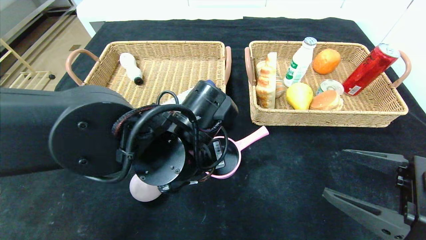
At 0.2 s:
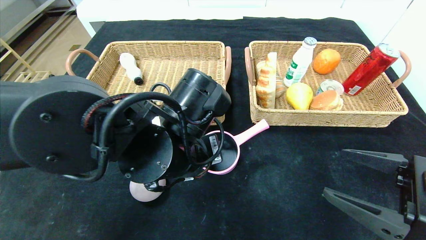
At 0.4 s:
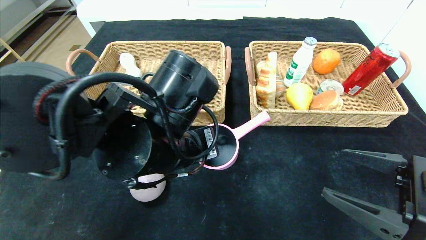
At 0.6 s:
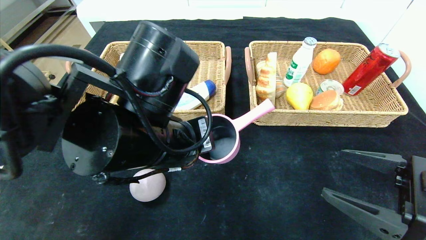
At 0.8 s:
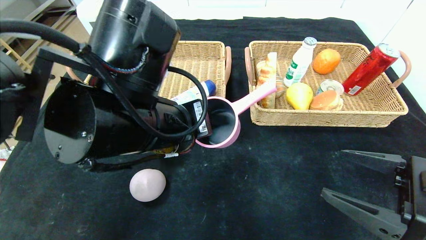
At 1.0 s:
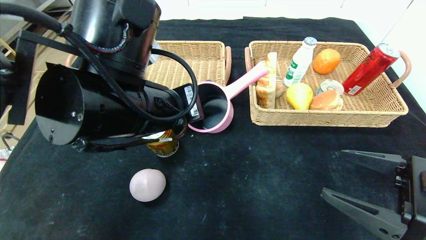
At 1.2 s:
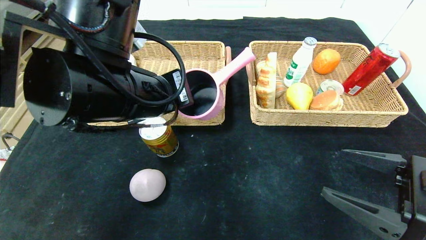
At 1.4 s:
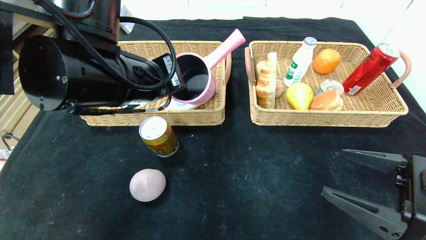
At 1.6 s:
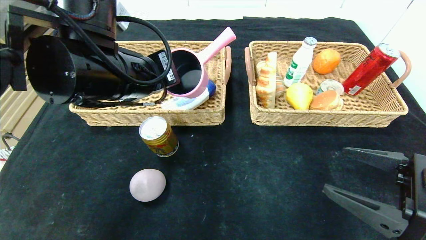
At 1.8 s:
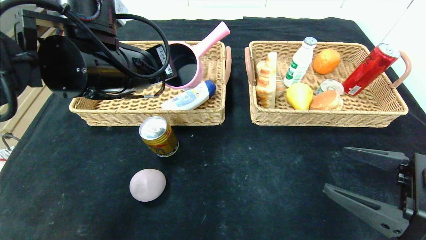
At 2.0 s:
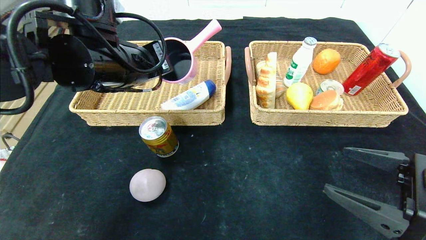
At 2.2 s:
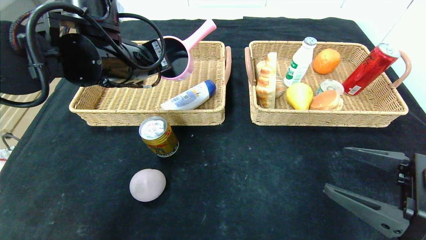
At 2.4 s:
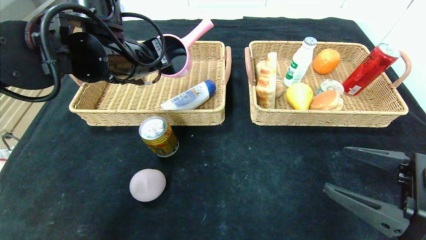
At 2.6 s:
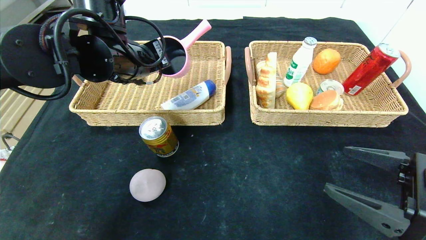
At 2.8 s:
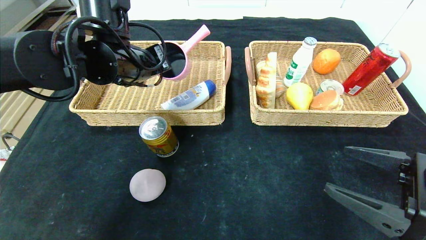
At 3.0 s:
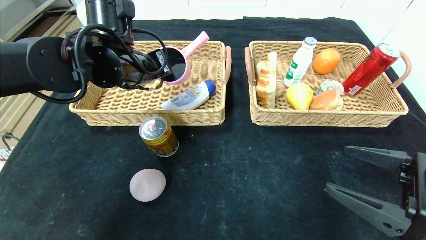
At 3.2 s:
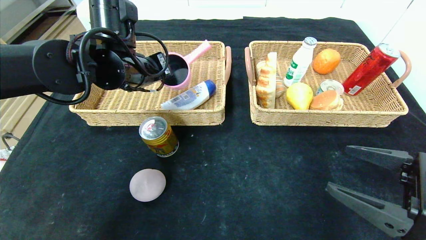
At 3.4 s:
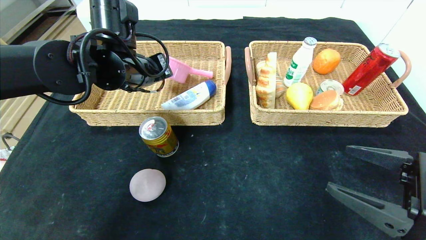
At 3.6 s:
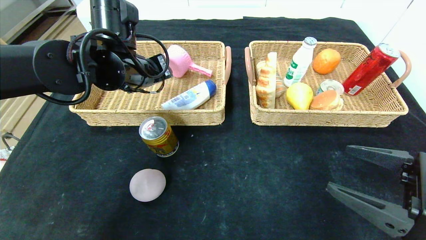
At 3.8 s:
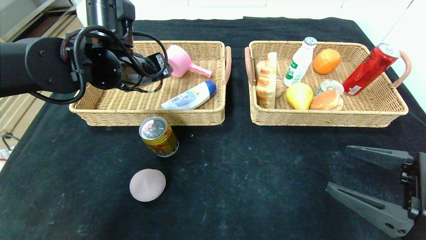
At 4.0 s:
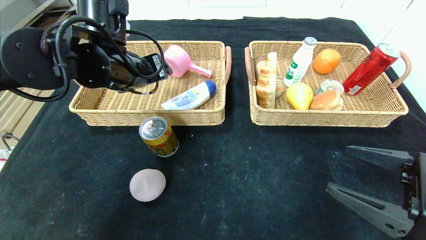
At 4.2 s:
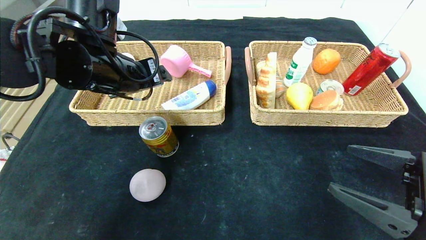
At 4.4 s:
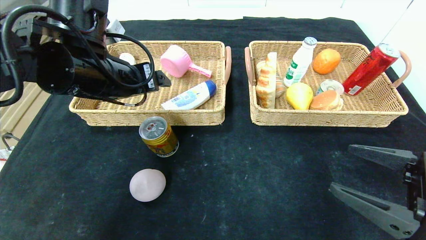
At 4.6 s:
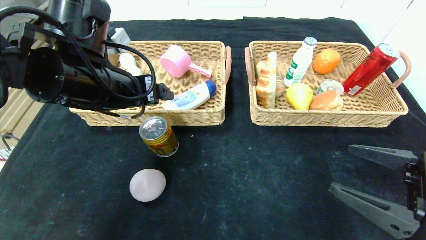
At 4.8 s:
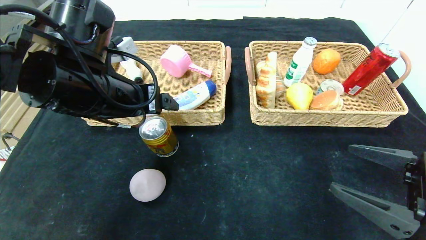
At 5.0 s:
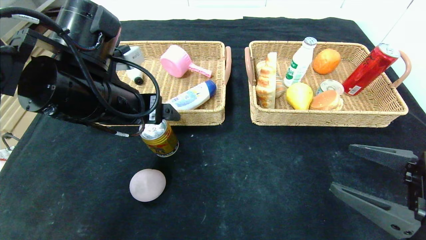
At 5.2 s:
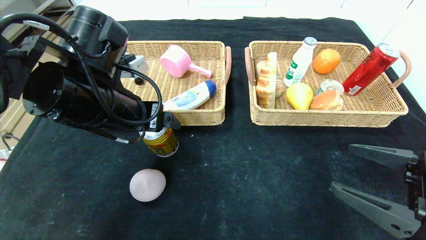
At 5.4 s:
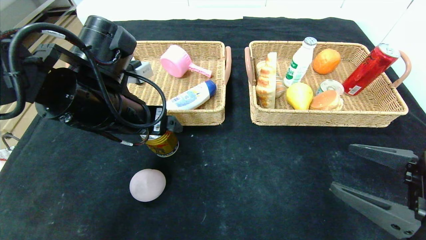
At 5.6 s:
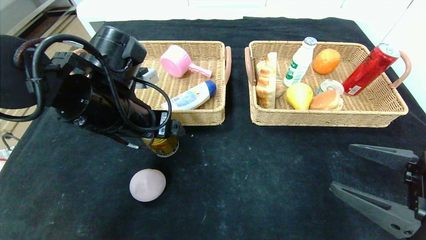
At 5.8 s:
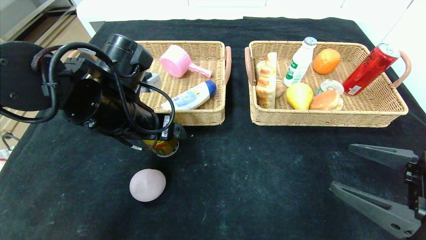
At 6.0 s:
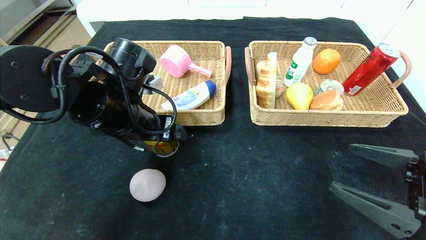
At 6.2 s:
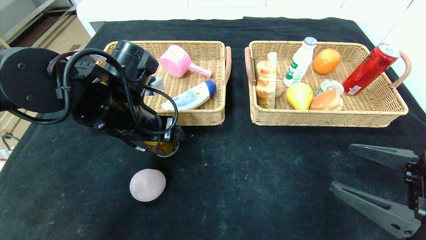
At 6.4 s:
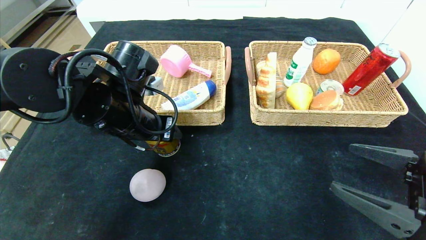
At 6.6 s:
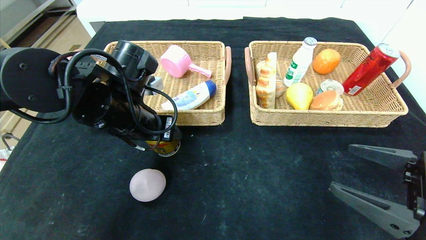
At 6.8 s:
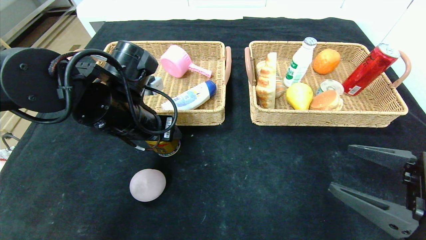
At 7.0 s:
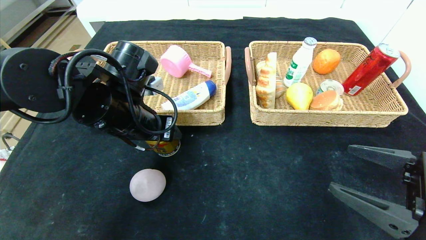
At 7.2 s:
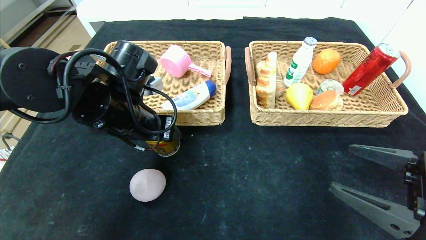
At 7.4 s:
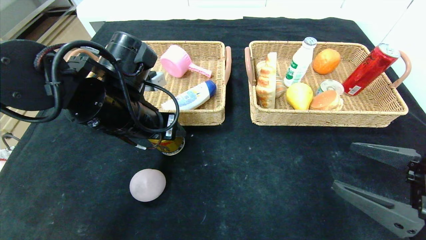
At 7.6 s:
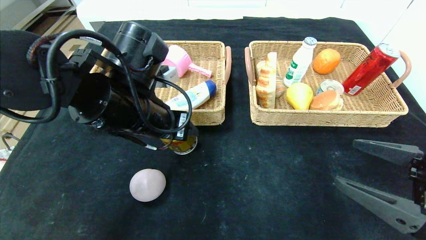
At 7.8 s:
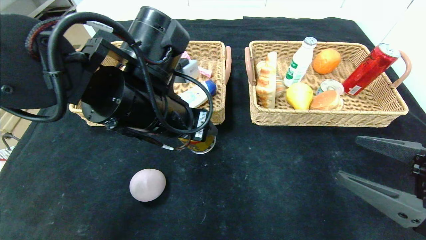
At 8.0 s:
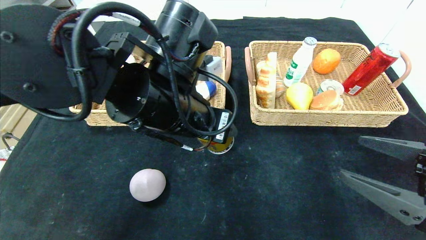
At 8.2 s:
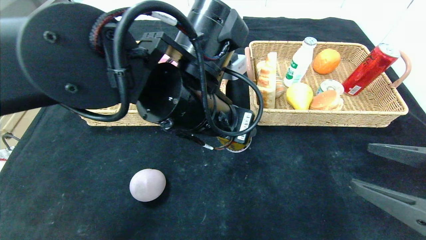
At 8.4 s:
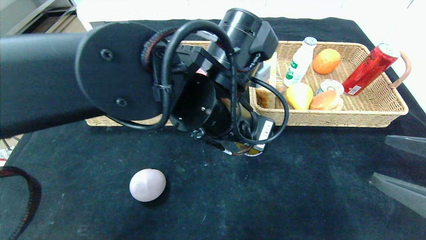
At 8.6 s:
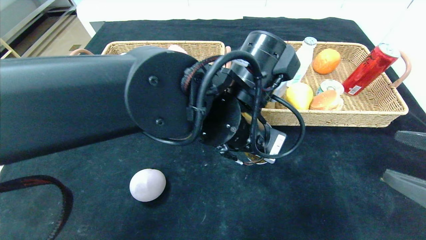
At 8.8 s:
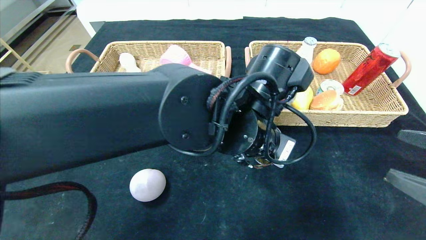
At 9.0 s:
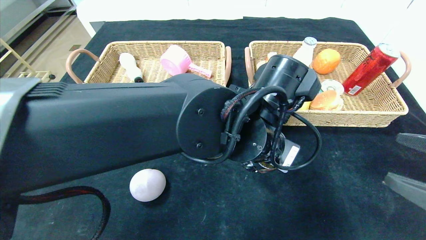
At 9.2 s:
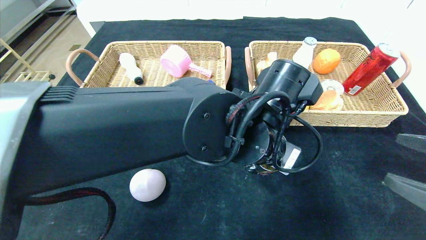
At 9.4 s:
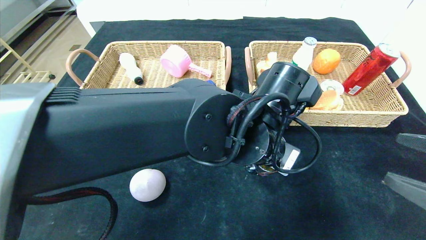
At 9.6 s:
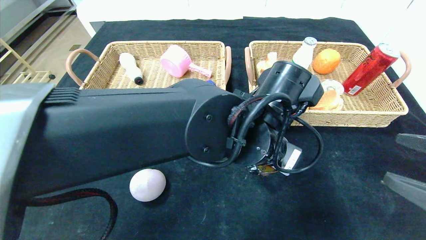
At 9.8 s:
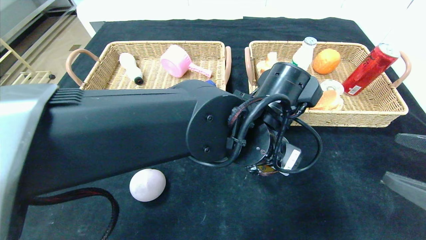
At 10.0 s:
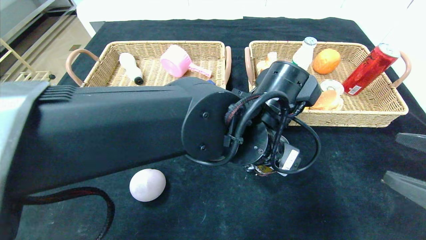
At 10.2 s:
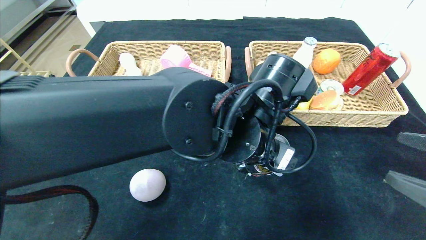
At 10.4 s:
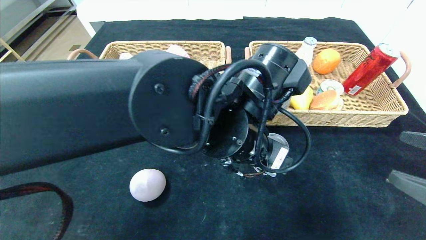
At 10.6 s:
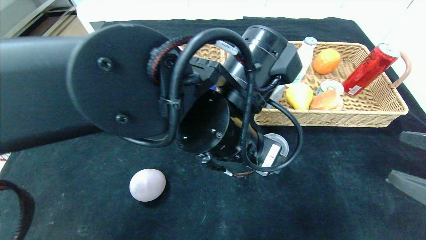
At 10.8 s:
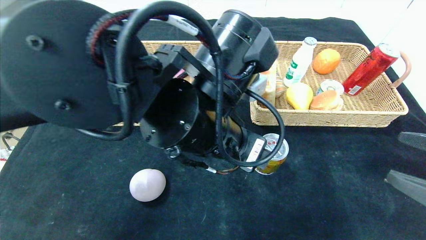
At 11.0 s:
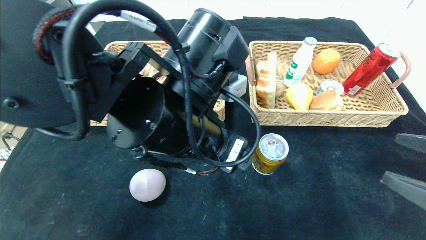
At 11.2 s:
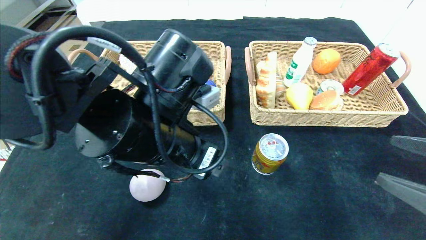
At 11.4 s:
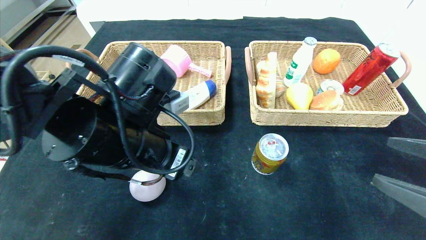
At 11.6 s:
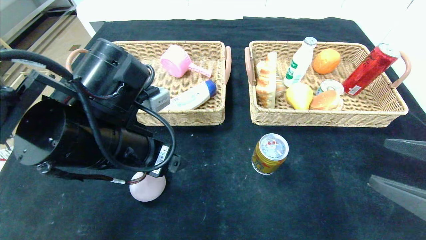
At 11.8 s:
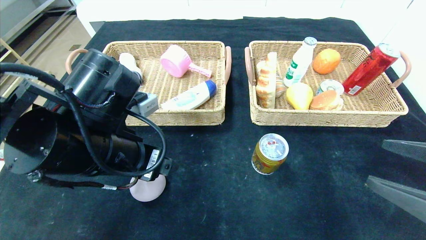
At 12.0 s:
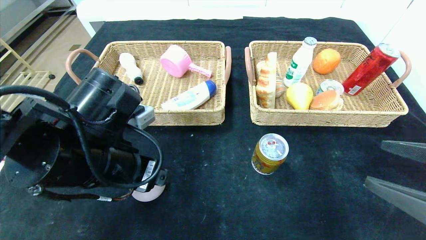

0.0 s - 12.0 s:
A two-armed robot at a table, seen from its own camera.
Step, 0.0 s - 3.6 s: Grasp the pink pot and put it in the left basket.
Step, 3.8 s - 10.2 s: Place the Red Bull in the center of the table.
0.0 s - 1.6 s: The left gripper heads upward and to the left, covering about 15 cm.
1.6 s - 3.0 s: The left gripper travels forward by roughly 10 cm.
3.0 s - 4.4 s: The left gripper is displaced backward by roughly 5 cm, and opens.
4.4 s - 6.0 s: The left gripper moves downward, approximately 5 cm.
6.0 s - 7.6 s: There are only small adjustments of the grippers.
7.6 s - 9.0 s: The left gripper is displaced to the right by approximately 15 cm.
10.4 s - 12.0 s: The left gripper moves to the left, some 20 cm.

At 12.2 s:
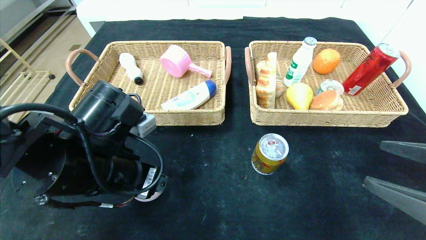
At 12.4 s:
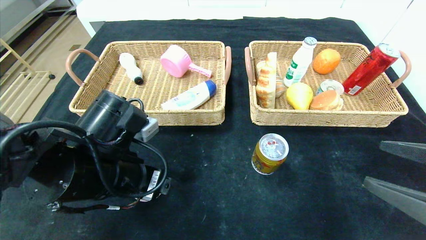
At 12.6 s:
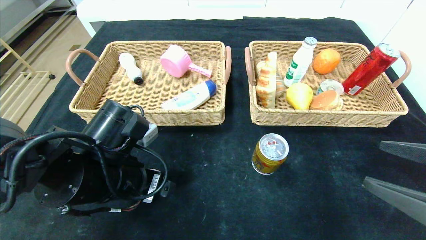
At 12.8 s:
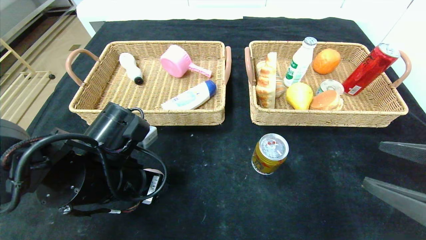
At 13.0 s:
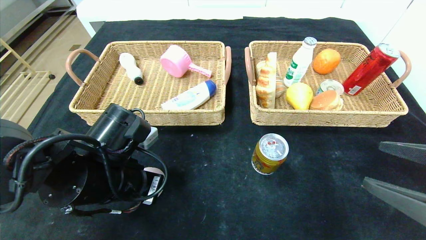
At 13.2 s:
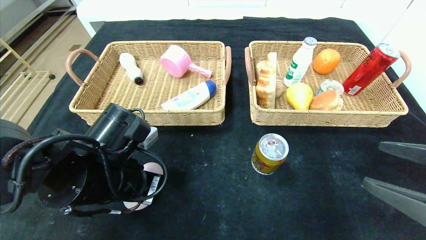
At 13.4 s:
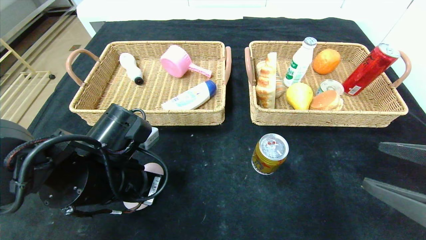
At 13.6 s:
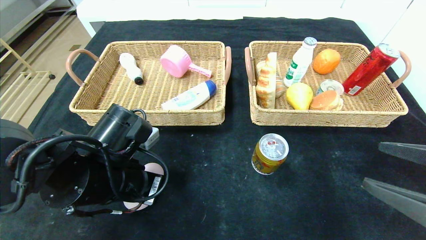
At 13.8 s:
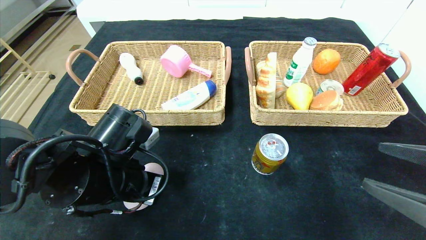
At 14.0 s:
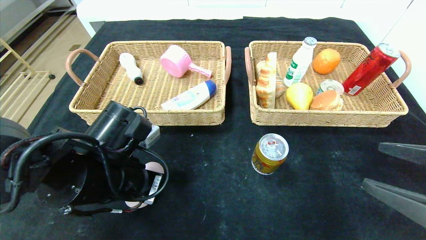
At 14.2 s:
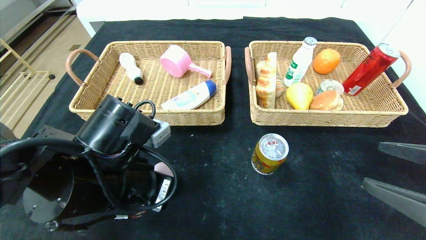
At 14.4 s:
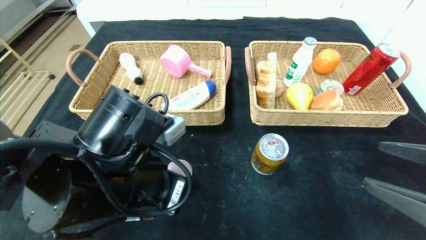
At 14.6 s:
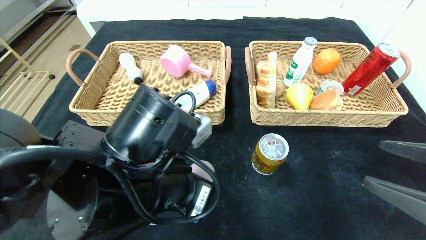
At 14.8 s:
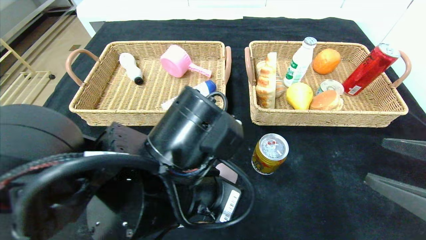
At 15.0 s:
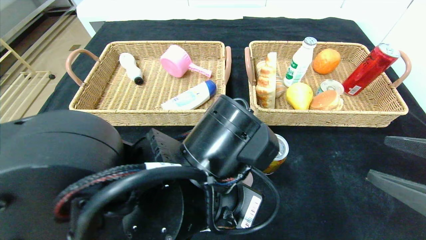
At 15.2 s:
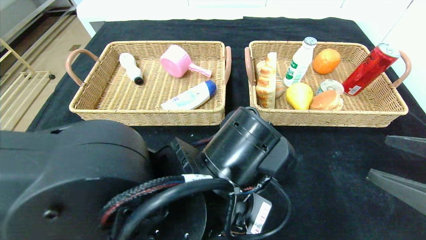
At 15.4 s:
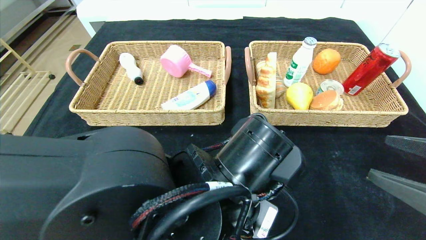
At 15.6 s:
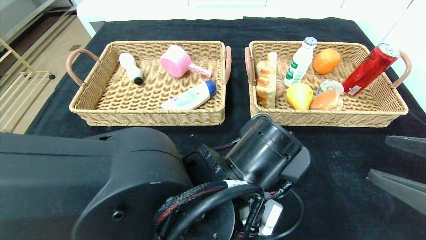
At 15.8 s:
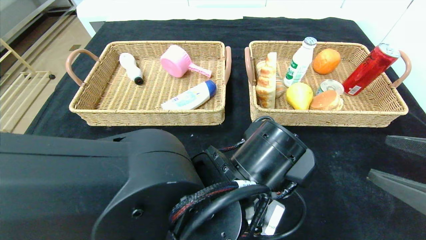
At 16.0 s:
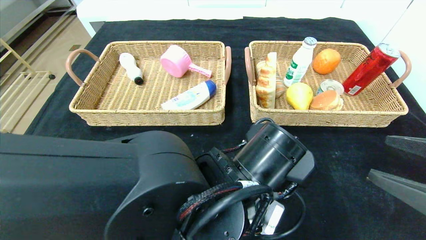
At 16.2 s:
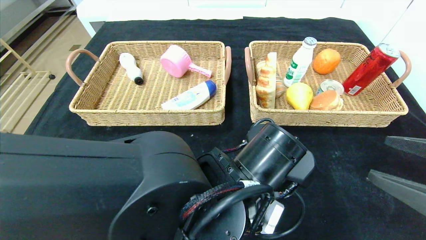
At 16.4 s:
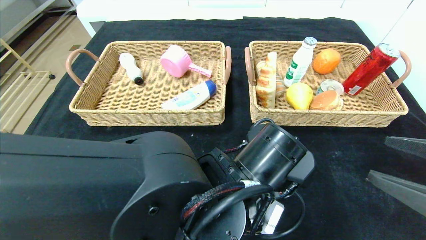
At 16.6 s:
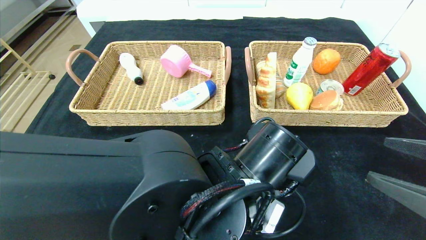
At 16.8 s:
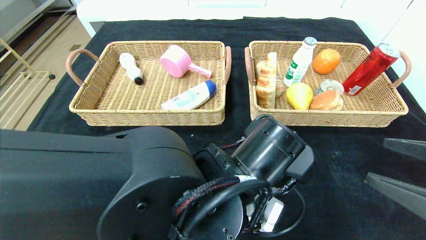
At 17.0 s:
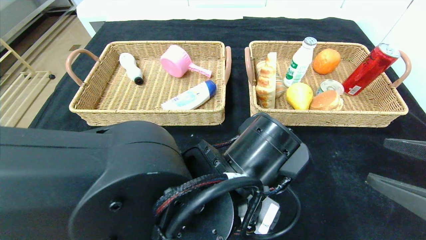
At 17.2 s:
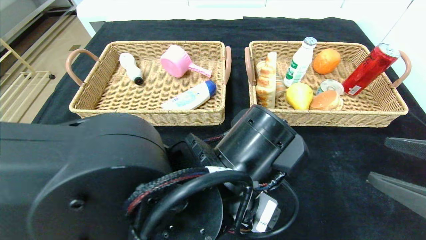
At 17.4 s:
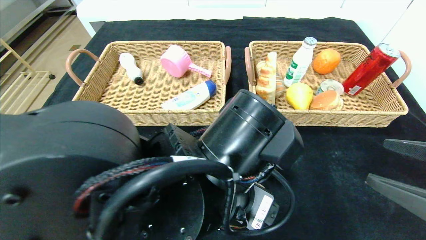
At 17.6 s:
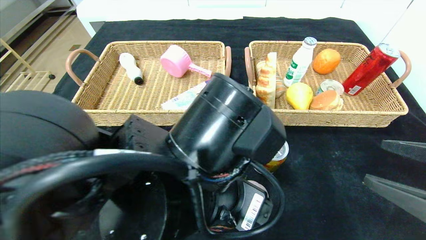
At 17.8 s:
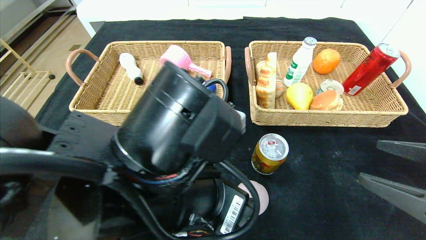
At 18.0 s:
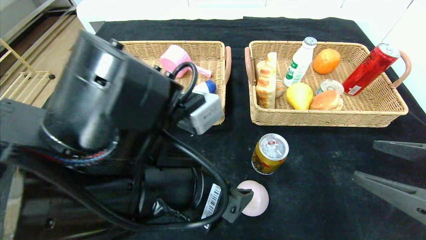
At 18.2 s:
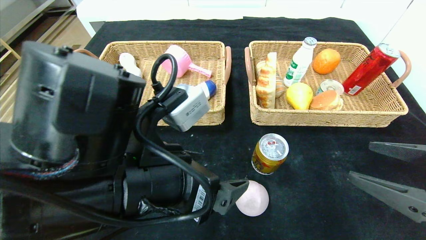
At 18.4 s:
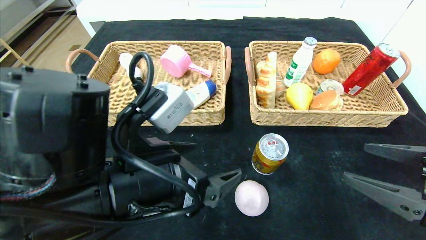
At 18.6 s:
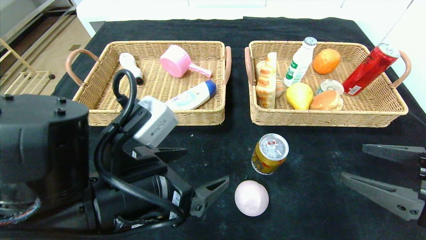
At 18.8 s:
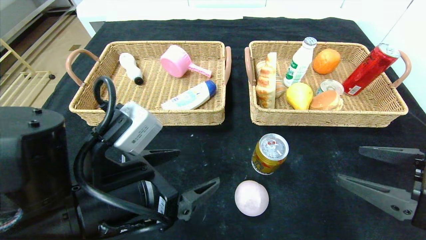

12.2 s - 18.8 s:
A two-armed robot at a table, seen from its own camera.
Step, 12.2 s - 17.0 s: Place the peach in the center of the table.
12.2 s - 13.8 s: The left gripper closes its fingers.
13.8 s - 15.4 s: The left gripper goes approximately 15 cm to the right.
15.4 s - 17.2 s: The left gripper opens its fingers.
17.2 s - 18.8 s: The left gripper shifts roughly 15 cm to the left.
